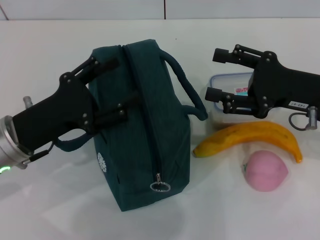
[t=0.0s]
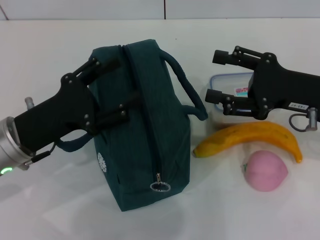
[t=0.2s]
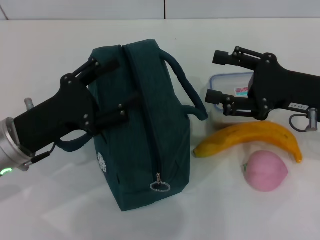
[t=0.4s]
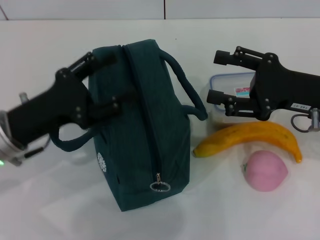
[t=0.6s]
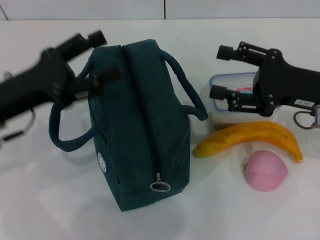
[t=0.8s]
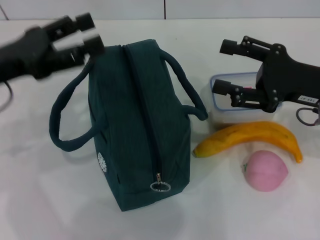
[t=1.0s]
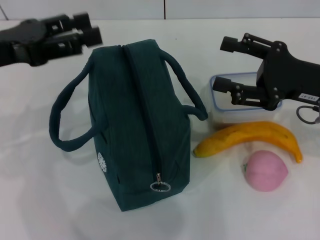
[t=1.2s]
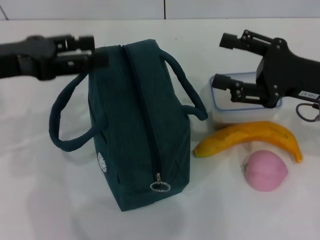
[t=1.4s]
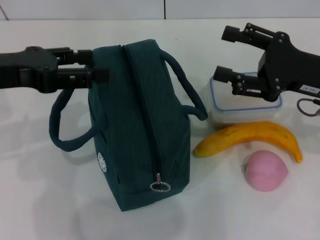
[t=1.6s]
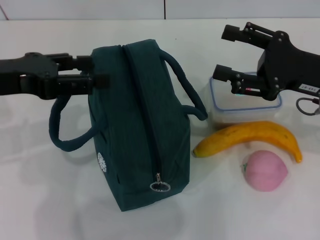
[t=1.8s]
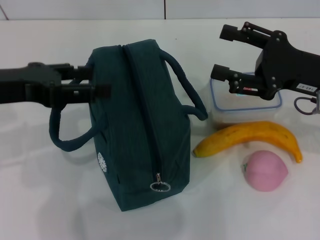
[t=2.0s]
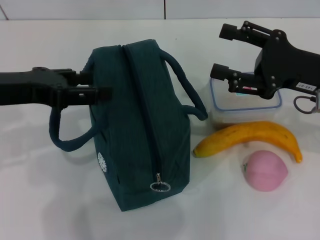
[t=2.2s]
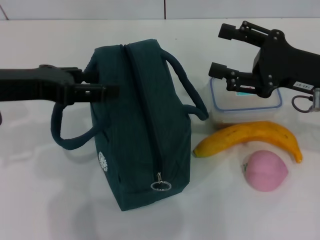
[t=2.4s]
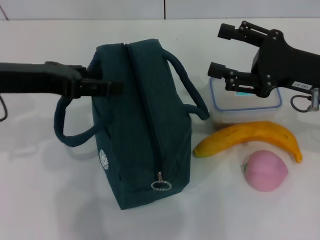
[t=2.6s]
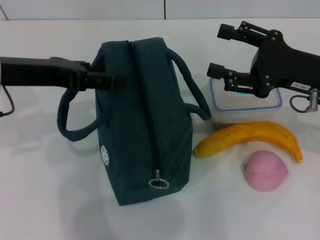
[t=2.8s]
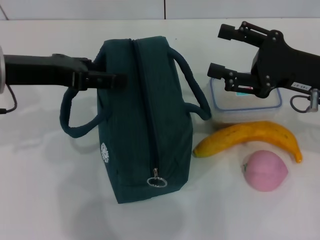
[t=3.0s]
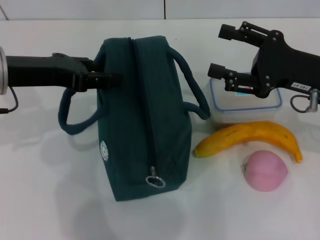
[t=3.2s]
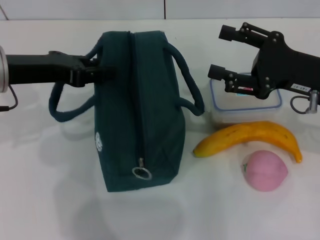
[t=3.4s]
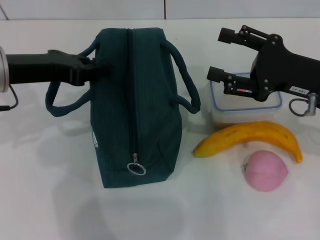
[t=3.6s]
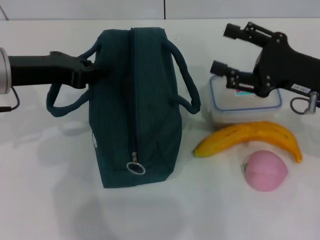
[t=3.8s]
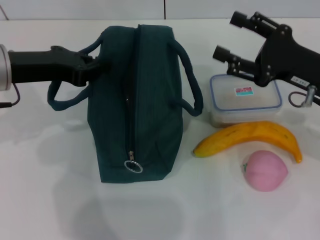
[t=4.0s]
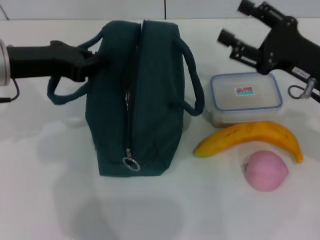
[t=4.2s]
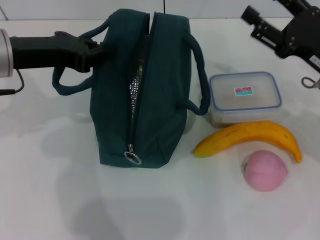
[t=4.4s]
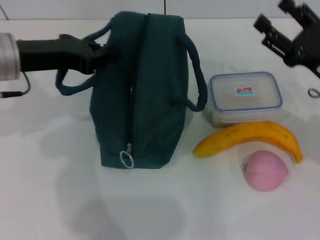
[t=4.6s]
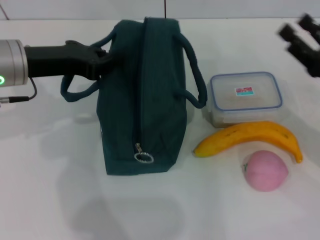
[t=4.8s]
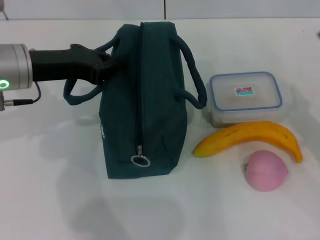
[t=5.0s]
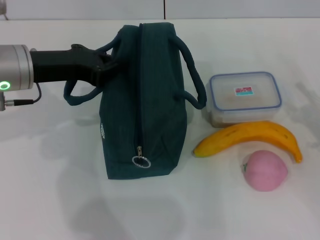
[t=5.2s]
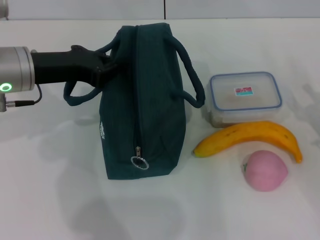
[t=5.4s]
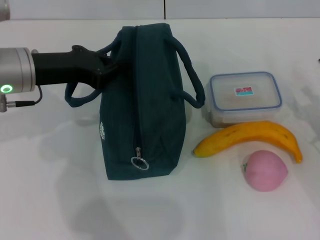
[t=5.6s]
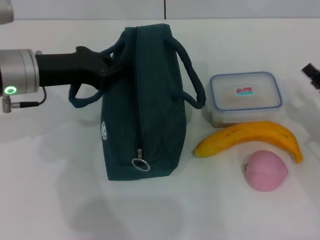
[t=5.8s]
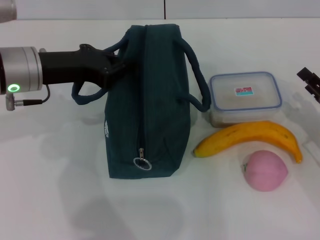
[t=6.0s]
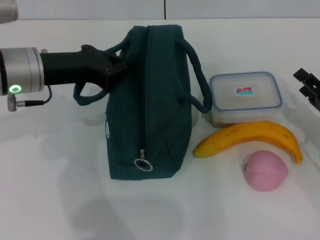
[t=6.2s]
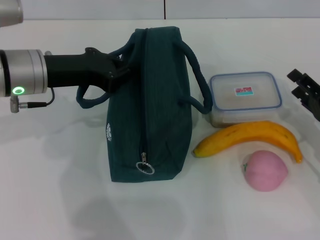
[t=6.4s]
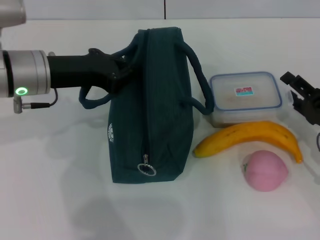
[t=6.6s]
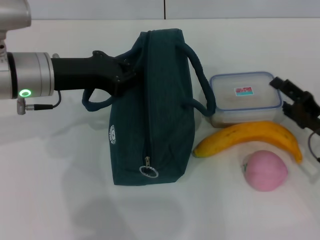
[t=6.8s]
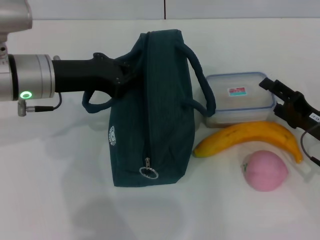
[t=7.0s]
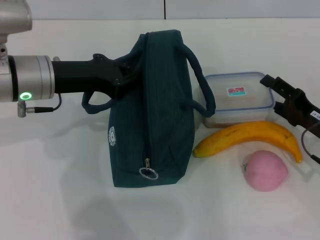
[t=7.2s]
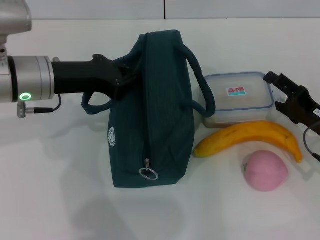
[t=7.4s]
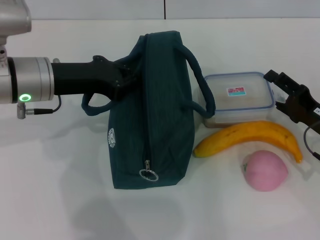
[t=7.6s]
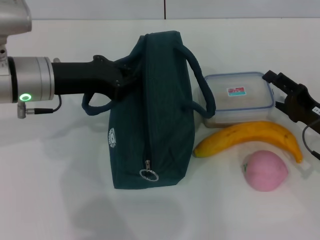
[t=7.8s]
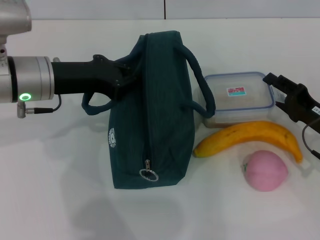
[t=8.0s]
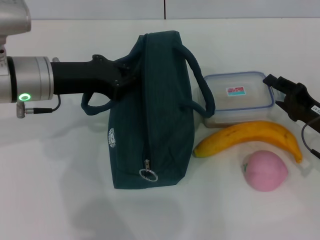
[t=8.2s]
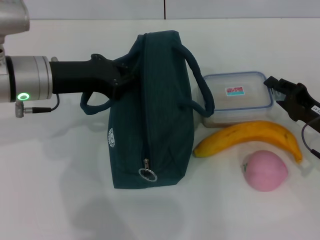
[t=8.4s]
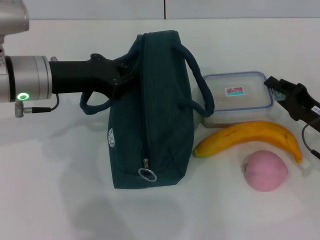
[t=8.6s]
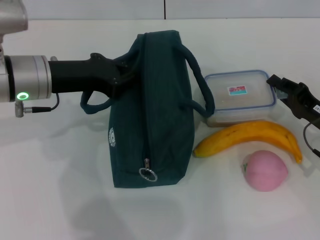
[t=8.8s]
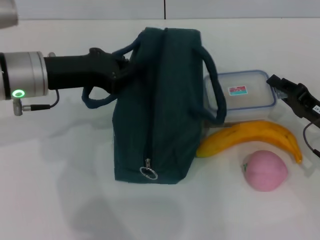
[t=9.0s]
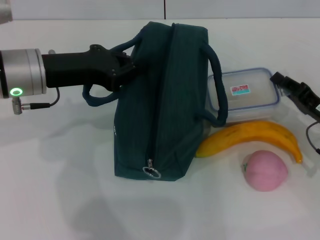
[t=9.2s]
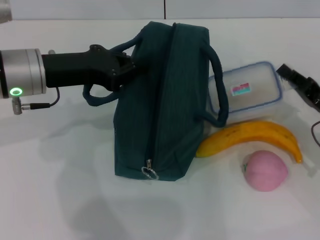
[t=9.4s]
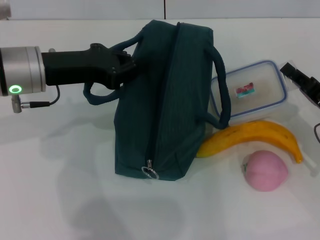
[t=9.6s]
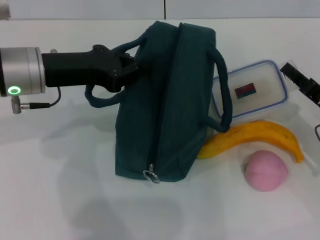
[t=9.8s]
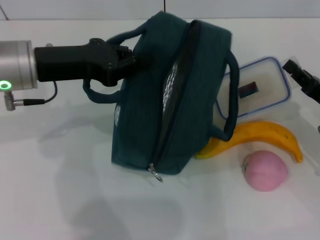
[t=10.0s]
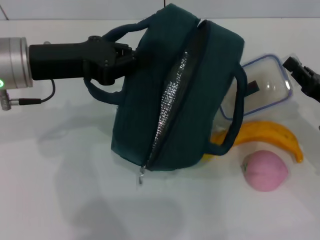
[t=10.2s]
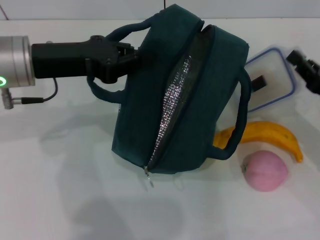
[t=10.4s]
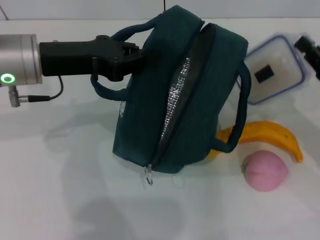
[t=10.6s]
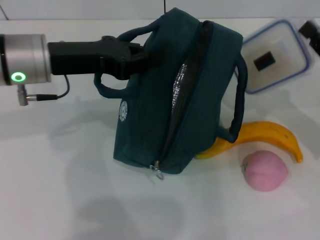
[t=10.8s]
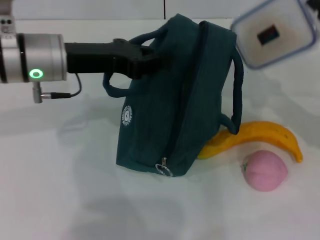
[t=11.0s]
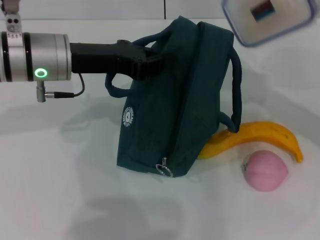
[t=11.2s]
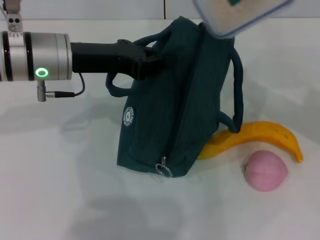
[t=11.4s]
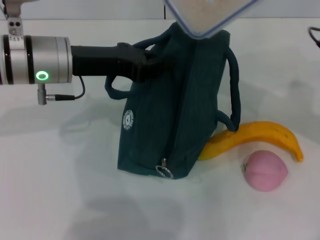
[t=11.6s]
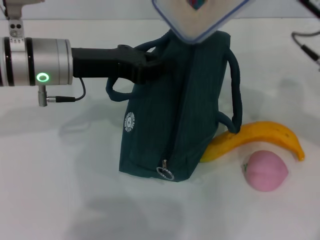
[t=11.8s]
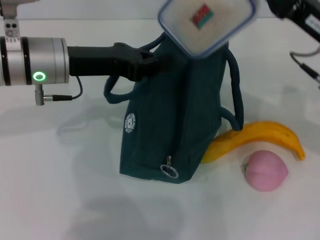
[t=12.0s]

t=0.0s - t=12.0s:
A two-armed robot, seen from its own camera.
Step, t=0.0s - t=6.0s: Hold the lunch bag with your left hand.
Step, t=6.2s - t=8.6s: Pick up the lunch box with your right hand.
t=0.0s - t=1.6s: The left gripper heads upward, covering approximately 15 cm.
t=1.6s - t=3.0s: The grippers stay close to where they were, moving slightly.
t=3.0s - t=4.4s: The left gripper closes its fingers.
t=4.4s - t=6.0s: The right gripper is displaced downward and to the right by approximately 10 cm.
t=7.6s - t=9.0s: The right gripper closes its fingers.
t=10.4s - t=12.0s: The right gripper shifts approximately 15 cm upward, to the left and forward.

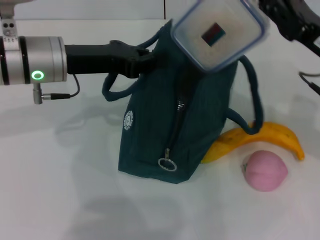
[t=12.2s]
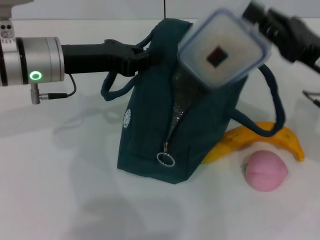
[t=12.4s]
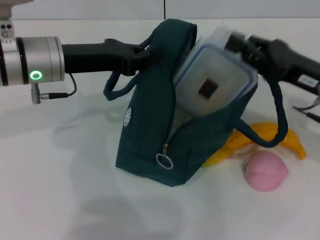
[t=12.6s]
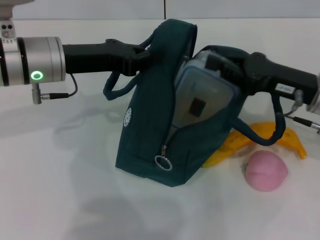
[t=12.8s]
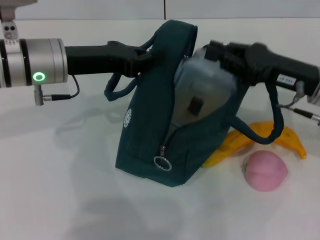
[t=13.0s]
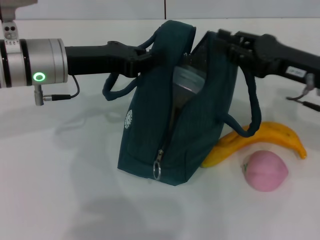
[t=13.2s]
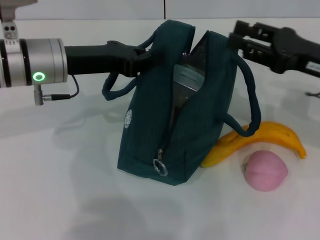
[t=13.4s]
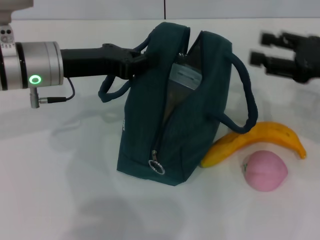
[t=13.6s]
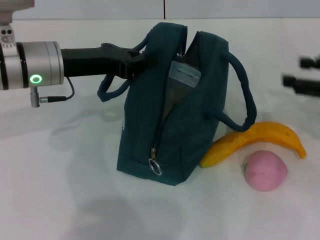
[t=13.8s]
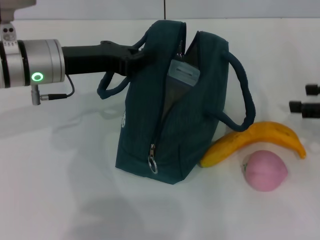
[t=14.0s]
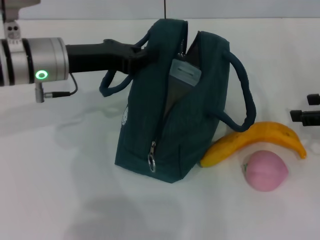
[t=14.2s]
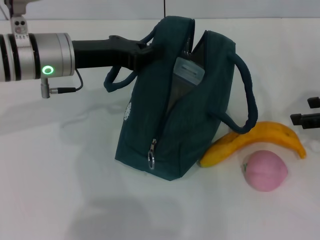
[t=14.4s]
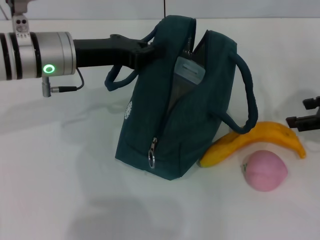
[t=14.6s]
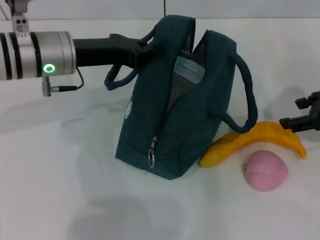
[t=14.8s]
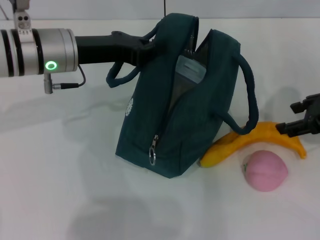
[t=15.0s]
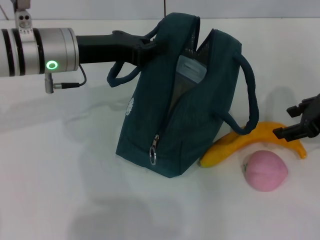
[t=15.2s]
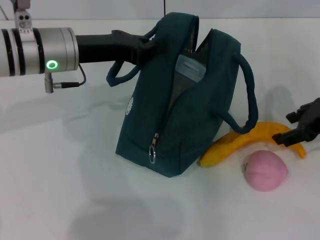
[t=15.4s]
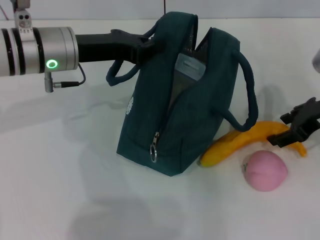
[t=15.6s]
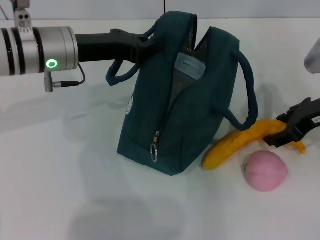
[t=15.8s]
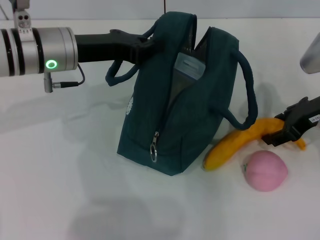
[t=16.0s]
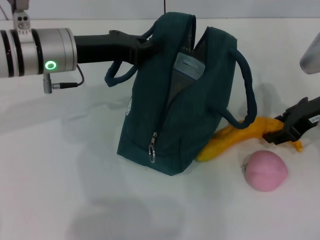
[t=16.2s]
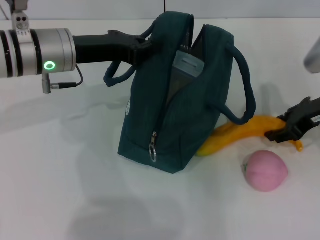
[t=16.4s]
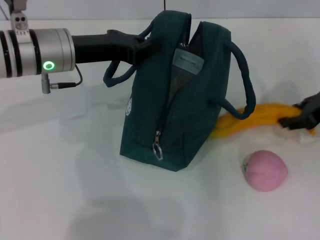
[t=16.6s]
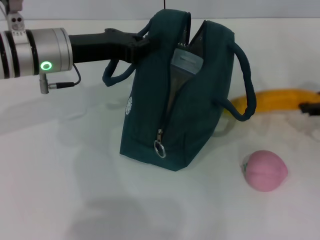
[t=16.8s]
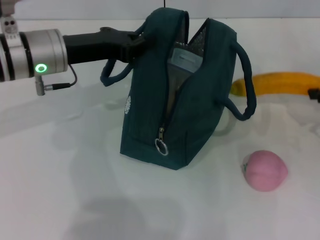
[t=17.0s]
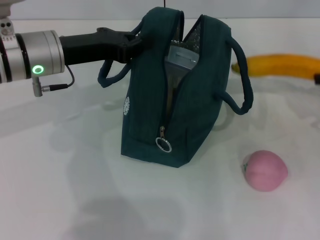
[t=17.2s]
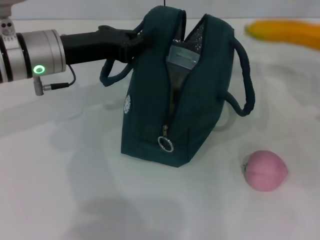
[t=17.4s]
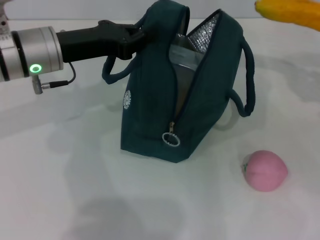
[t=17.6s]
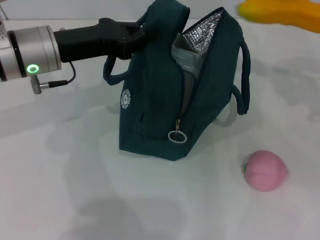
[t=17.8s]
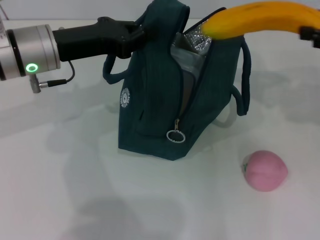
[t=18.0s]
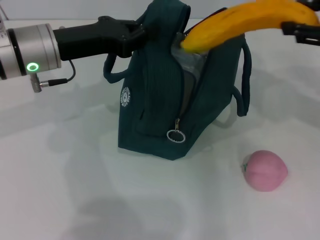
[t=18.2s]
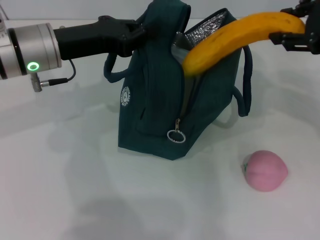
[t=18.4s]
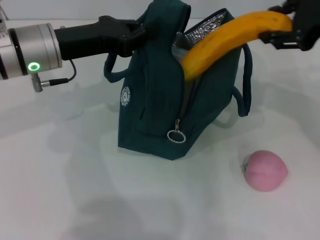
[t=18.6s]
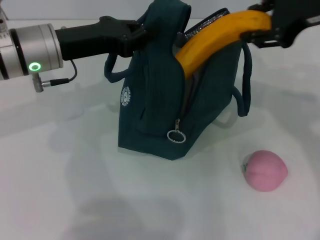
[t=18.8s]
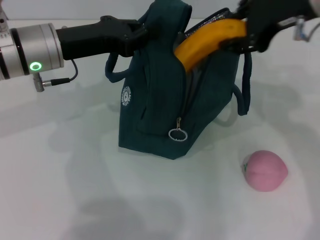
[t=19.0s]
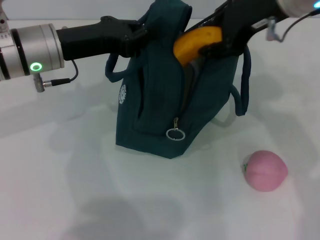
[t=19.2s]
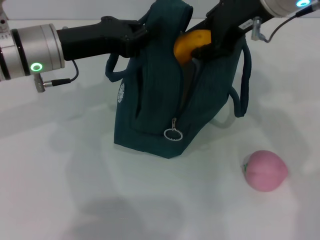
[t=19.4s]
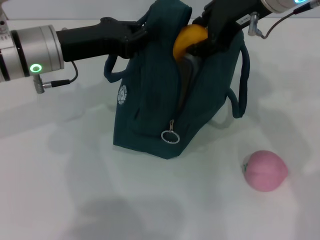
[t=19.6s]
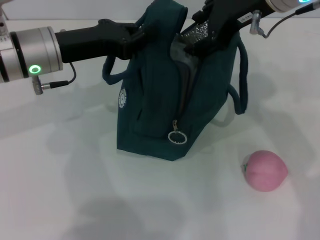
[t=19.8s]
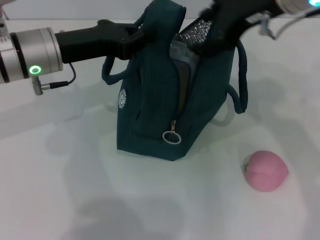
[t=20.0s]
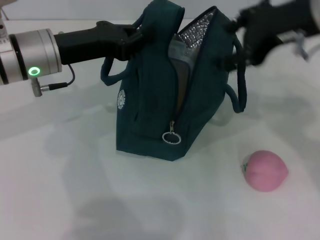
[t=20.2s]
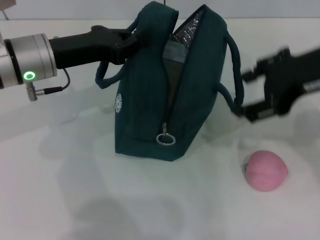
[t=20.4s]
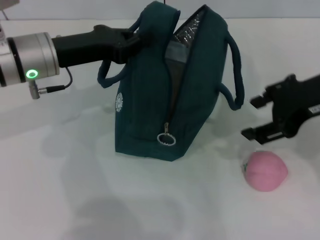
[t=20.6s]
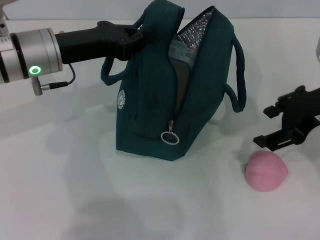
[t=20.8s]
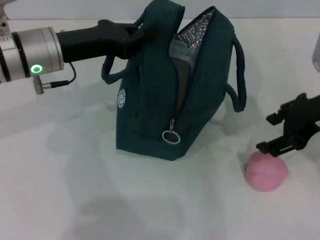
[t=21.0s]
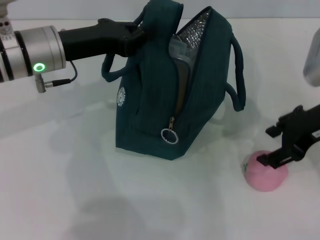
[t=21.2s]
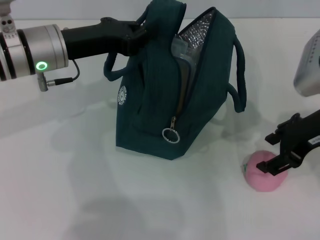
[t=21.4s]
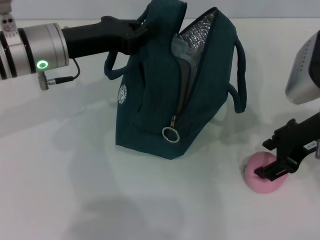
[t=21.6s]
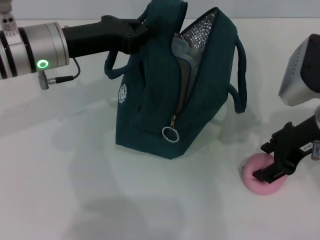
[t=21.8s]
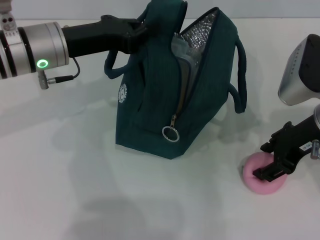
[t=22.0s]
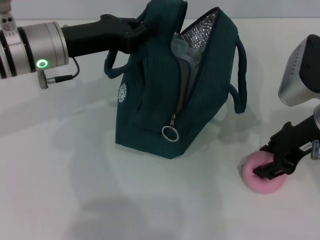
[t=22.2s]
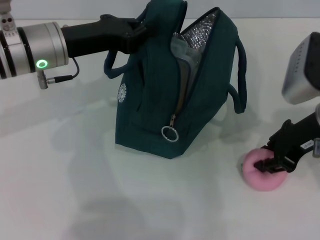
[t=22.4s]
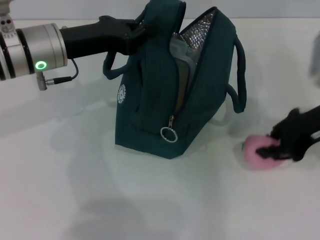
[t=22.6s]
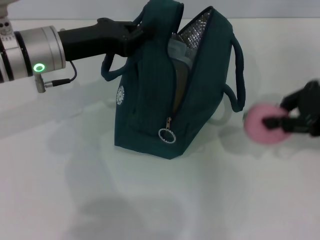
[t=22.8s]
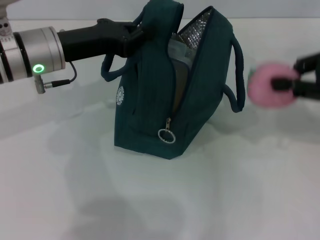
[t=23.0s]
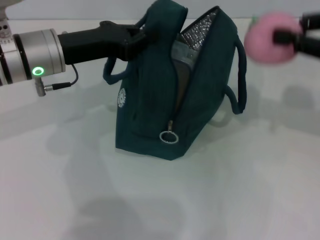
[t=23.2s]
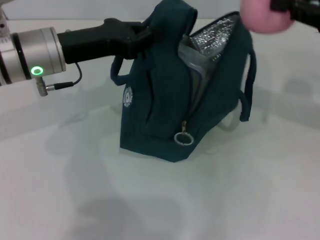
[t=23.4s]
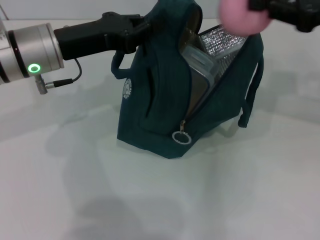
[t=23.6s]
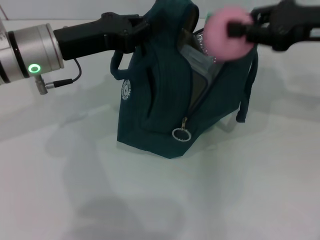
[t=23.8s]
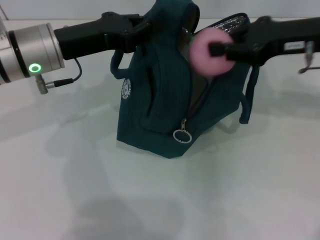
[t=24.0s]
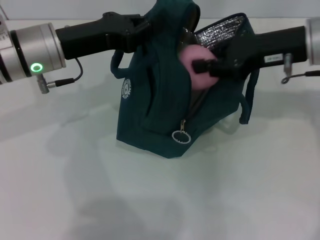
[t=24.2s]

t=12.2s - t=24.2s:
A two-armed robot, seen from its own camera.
Step, t=13.6s - t=16.2s: Take the banana with your right hand.
Step, t=16.4s - t=20.0s: Put the banana into the lunch bag with your right hand.
Step, t=20.2s - t=22.2s: Grab the peach with your right hand.
t=12.2s - t=13.8s: The right gripper is displaced to the right by about 10 cm, and opens up.
t=13.8s - t=15.2s: The right gripper moves approximately 5 cm.
t=15.2s - t=16.6s: The grippers make only small movements.
t=16.6s - t=18.2s: The right gripper goes approximately 10 cm upward.
t=18.2s - t=19.8s: The right gripper travels to the left by some 15 cm.
t=19.8s - t=21.2s: The right gripper is displaced downward, to the right and backward by about 15 cm.
t=21.2s - t=22.6s: The right gripper closes its fingers.
t=22.6s - t=24.2s: The right gripper heads forward, covering some 5 cm, and travels to the right and back again, some 5 cm each way.
